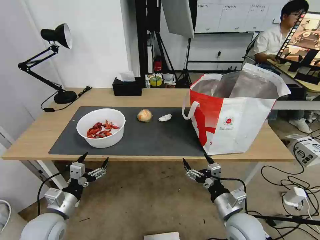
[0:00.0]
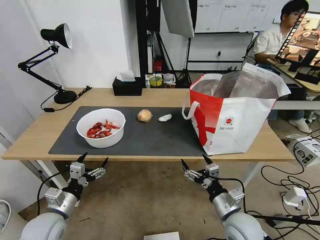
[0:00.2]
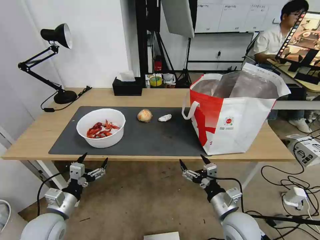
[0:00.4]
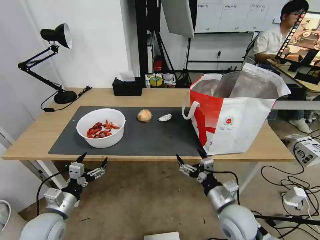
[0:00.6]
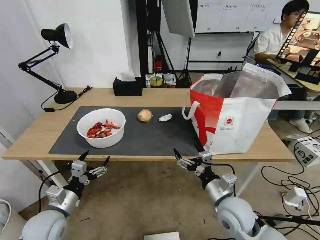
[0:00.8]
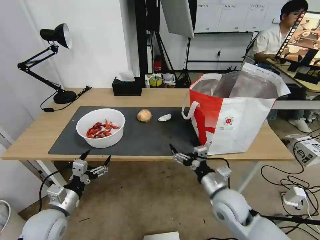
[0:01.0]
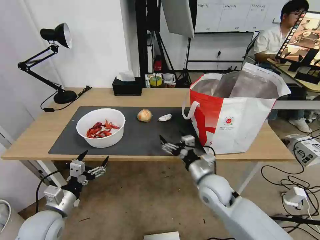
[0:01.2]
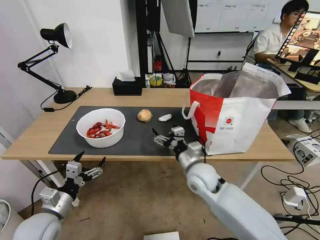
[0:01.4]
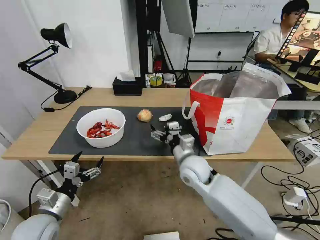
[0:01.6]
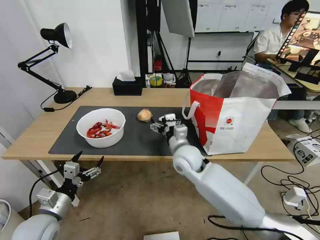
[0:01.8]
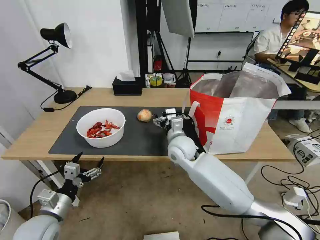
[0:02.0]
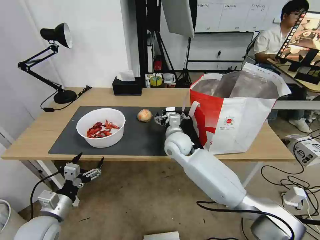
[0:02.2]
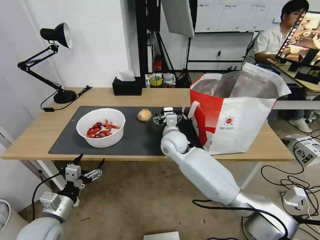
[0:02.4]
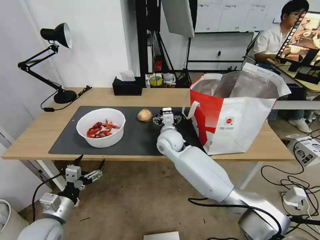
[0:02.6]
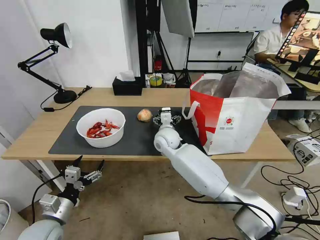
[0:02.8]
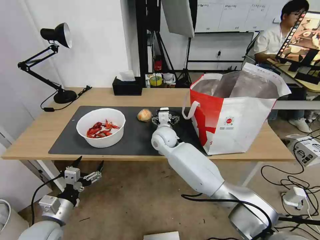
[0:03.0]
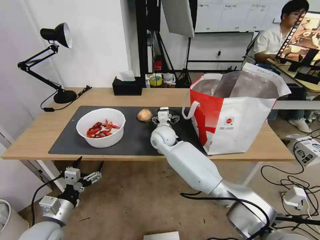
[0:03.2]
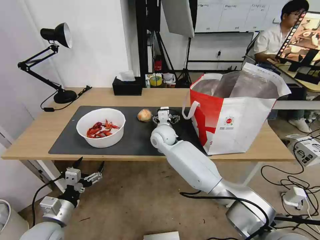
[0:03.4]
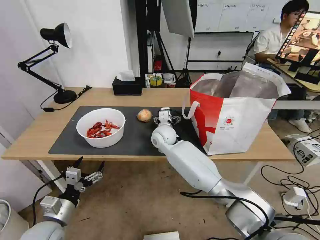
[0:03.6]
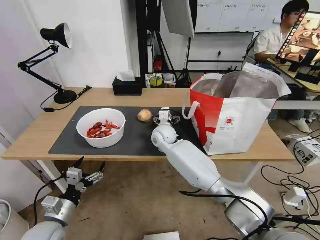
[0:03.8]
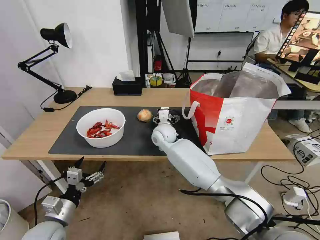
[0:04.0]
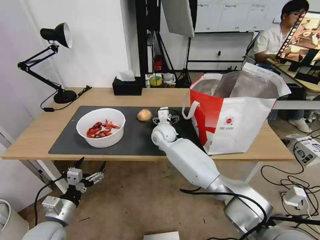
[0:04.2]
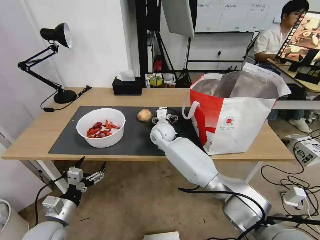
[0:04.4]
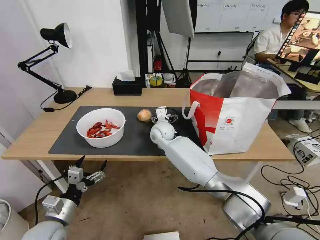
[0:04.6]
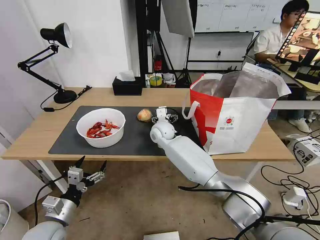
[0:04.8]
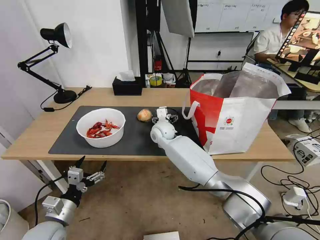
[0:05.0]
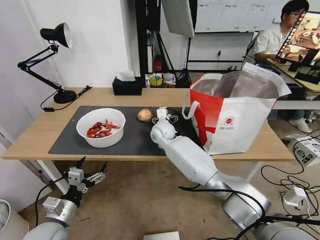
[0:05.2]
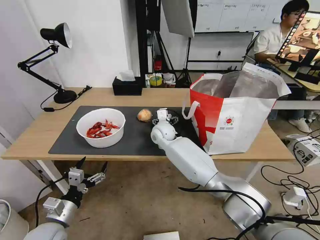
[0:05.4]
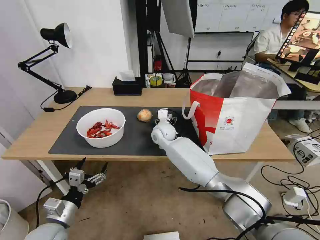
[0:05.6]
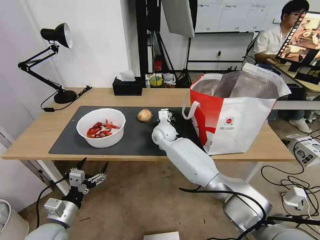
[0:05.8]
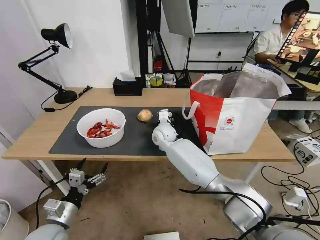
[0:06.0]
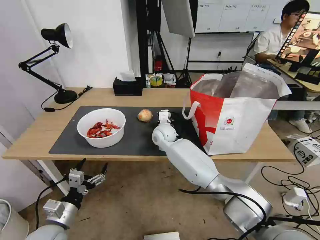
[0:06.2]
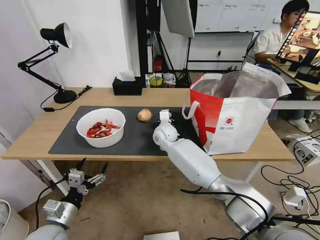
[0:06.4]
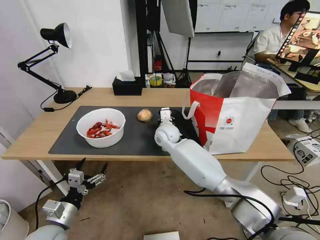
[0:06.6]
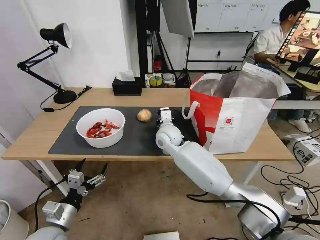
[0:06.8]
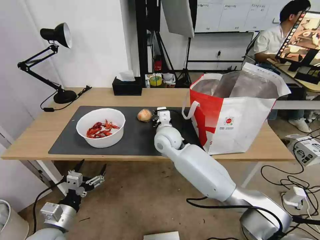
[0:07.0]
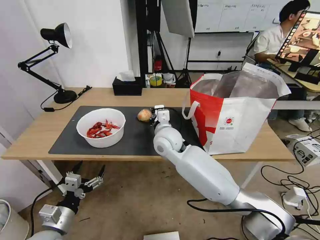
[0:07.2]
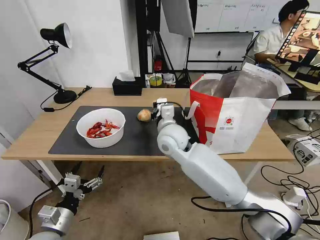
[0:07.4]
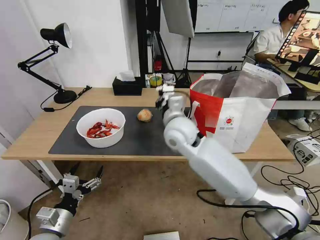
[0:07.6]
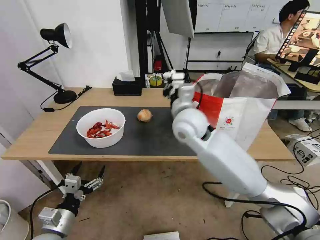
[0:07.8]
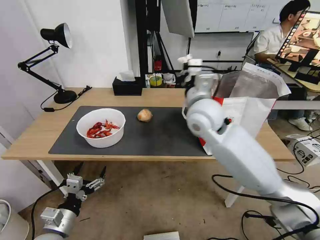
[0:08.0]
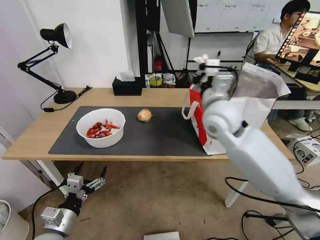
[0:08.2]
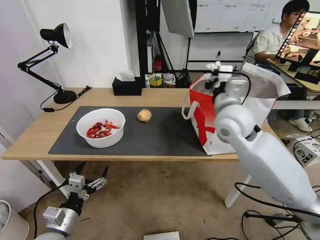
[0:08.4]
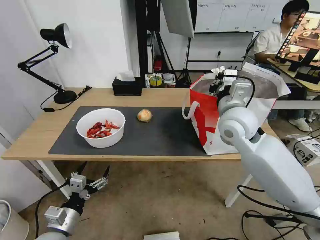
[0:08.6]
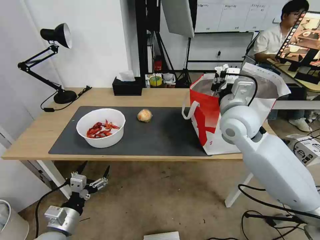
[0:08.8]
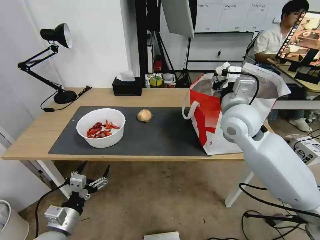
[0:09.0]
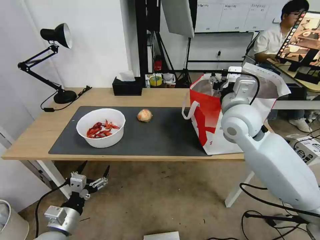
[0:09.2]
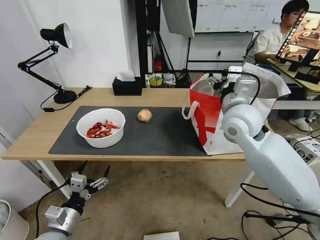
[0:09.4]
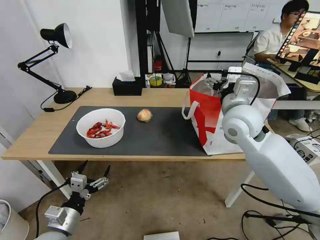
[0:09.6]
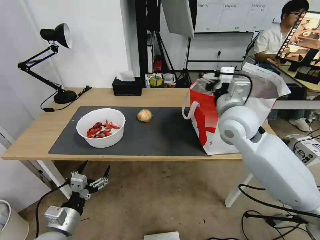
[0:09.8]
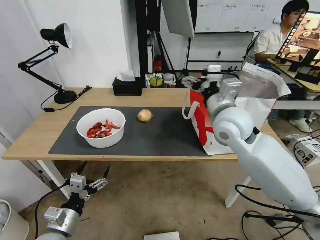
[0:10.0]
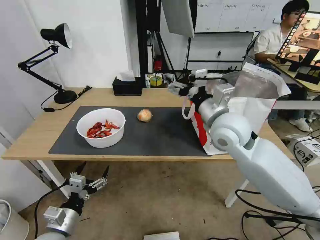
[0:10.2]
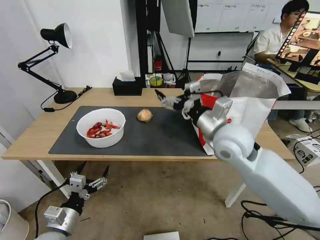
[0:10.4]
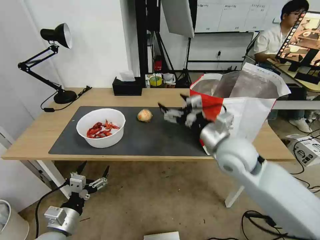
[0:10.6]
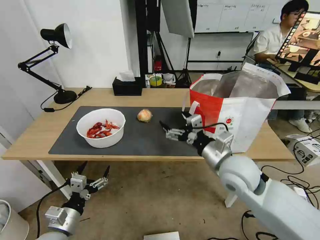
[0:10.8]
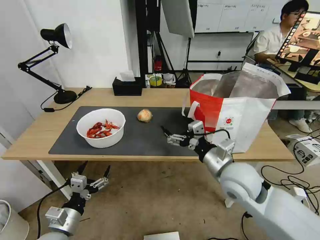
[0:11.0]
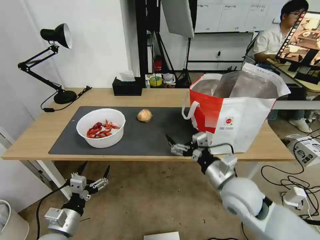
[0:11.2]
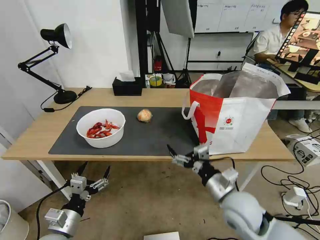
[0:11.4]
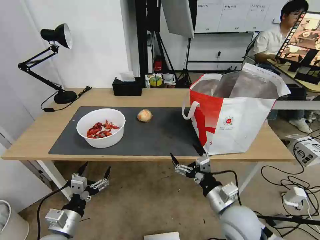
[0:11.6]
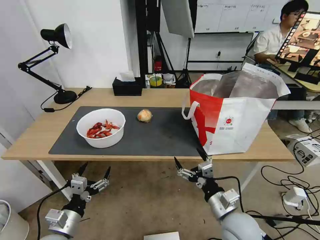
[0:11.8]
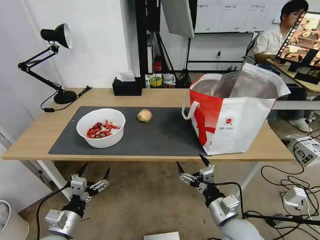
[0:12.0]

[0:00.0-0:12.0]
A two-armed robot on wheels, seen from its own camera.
Task of the whole recording: Pick up the trash from the table and place it into the takeout bag.
0:00.0 to 0:01.6: The right gripper travels forward, to the left and upward by approximately 20 cm.
0:01.6 to 0:03.0: The right gripper travels forward and to the left by some 15 cm.
0:03.0 to 0:04.4: The grippers make only small movements.
0:04.4 to 0:06.0: The right gripper closes up.
0:06.0 to 0:07.6: The right gripper goes about 15 cm upward and backward, and closes up.
0:07.6 to 0:09.0: The right gripper travels to the right by some 15 cm, and opens its fingers.
0:09.0 to 0:10.4: The right gripper shifts by approximately 5 cm, and opens up.
0:10.4 to 0:12.0: The right gripper goes approximately 25 cm downward and backward.

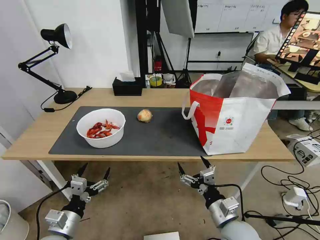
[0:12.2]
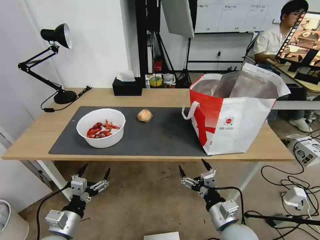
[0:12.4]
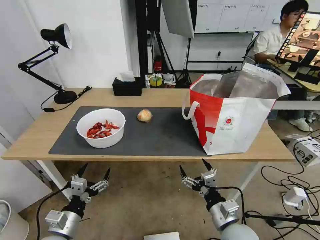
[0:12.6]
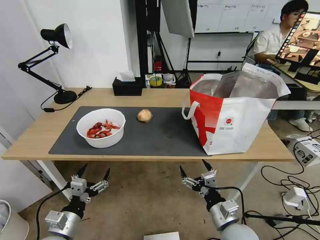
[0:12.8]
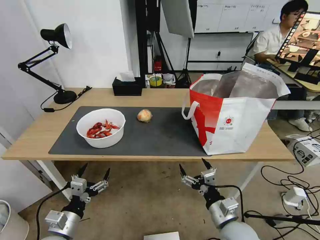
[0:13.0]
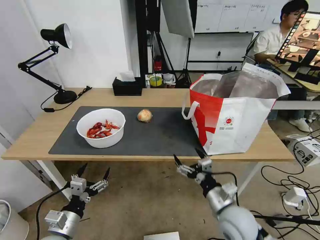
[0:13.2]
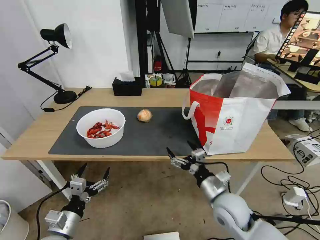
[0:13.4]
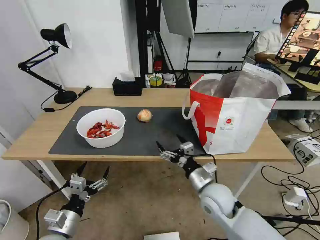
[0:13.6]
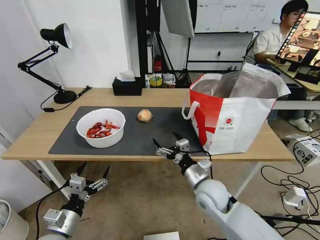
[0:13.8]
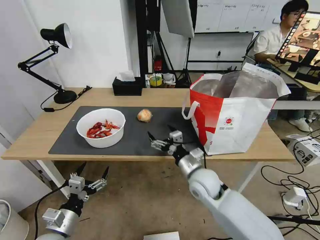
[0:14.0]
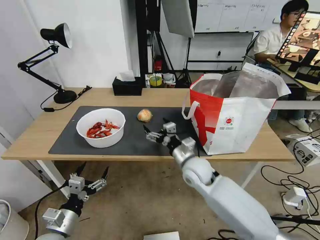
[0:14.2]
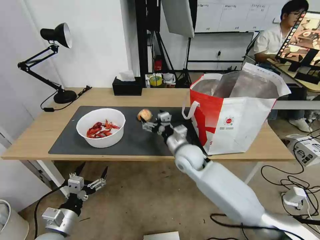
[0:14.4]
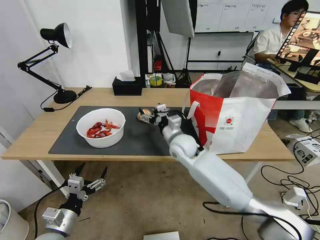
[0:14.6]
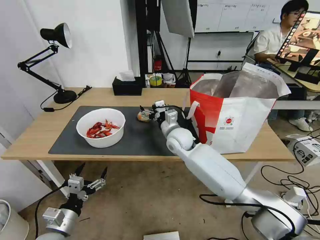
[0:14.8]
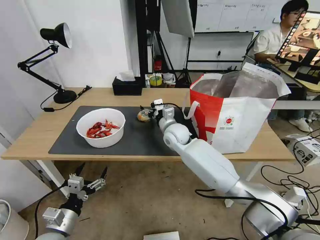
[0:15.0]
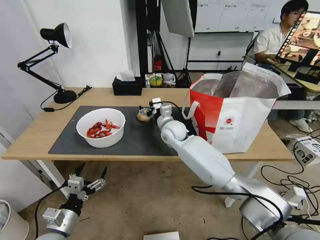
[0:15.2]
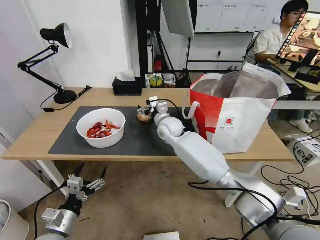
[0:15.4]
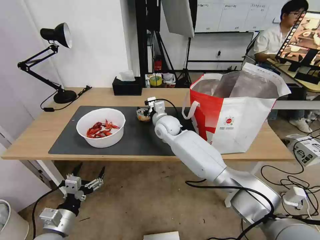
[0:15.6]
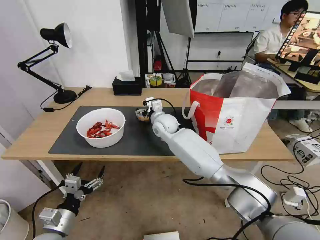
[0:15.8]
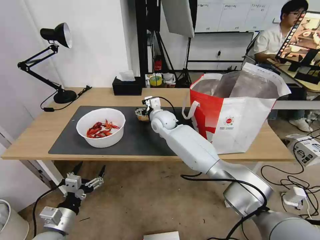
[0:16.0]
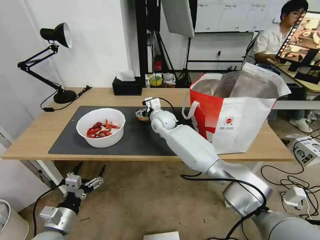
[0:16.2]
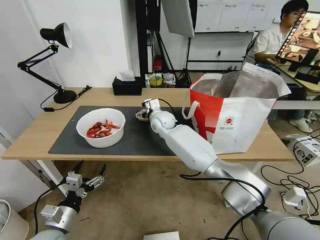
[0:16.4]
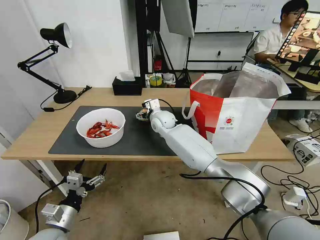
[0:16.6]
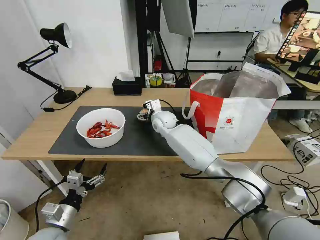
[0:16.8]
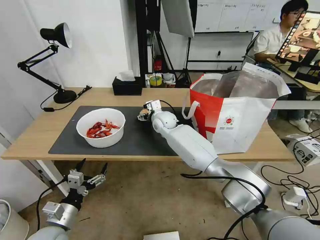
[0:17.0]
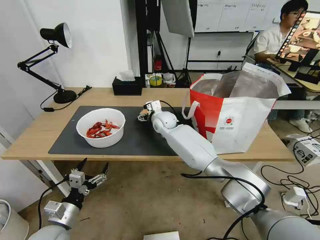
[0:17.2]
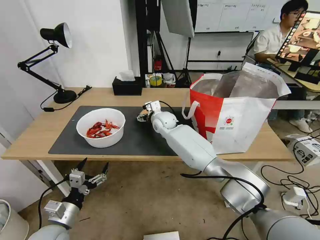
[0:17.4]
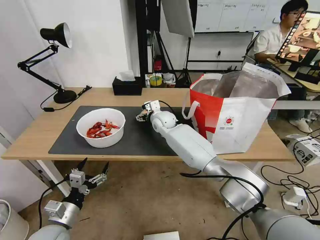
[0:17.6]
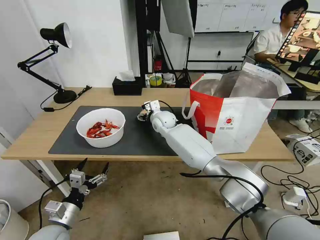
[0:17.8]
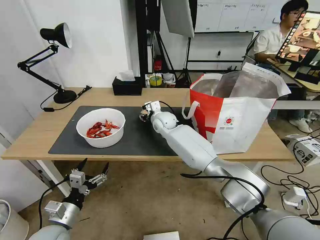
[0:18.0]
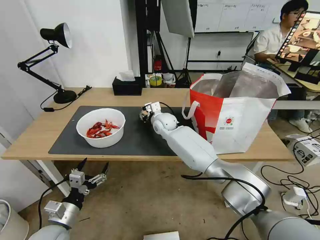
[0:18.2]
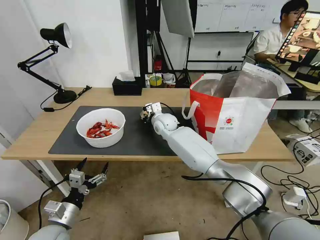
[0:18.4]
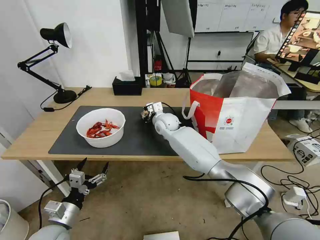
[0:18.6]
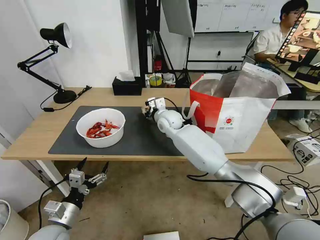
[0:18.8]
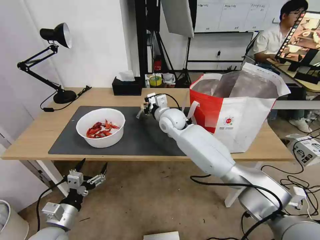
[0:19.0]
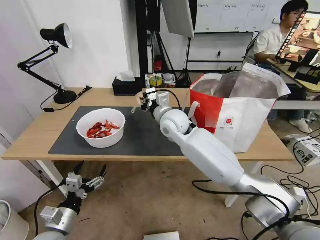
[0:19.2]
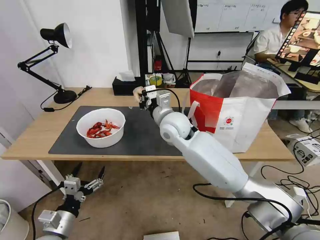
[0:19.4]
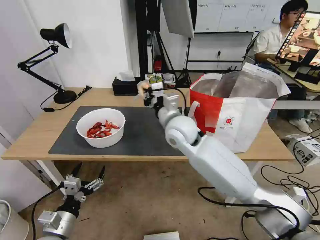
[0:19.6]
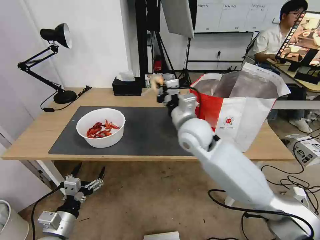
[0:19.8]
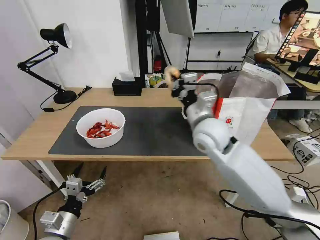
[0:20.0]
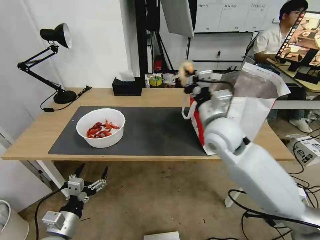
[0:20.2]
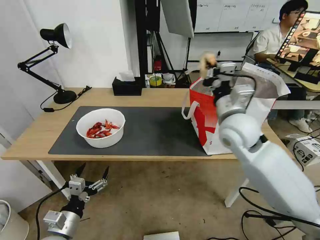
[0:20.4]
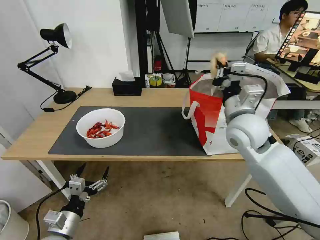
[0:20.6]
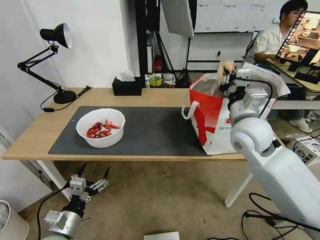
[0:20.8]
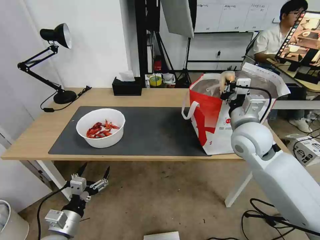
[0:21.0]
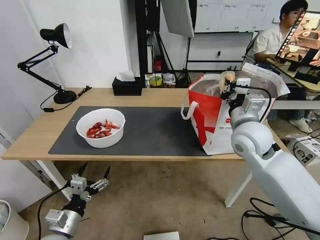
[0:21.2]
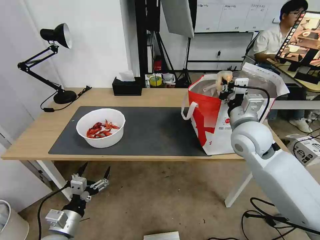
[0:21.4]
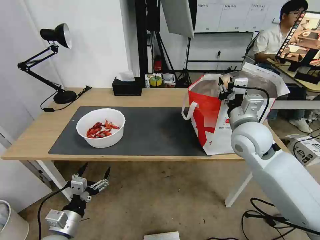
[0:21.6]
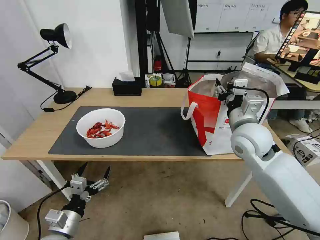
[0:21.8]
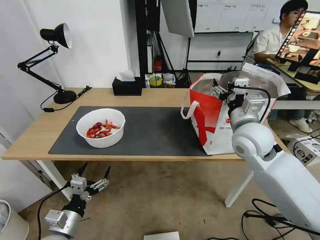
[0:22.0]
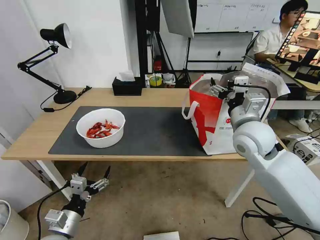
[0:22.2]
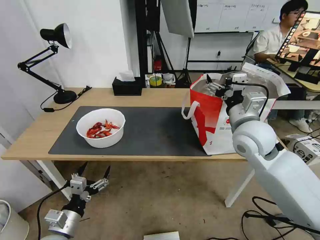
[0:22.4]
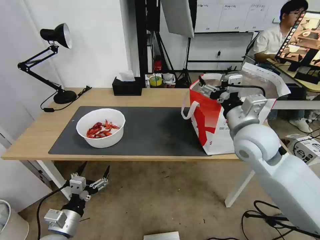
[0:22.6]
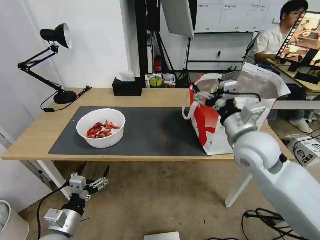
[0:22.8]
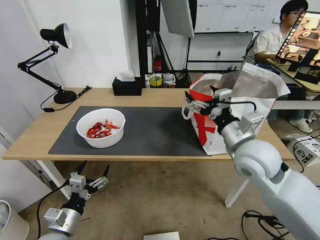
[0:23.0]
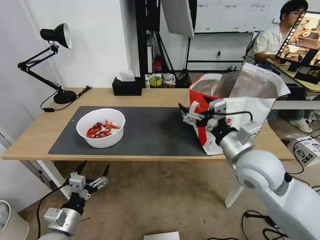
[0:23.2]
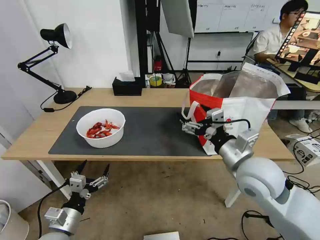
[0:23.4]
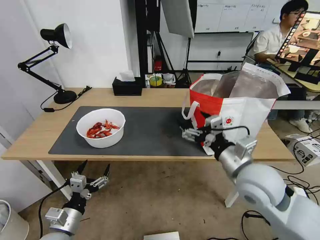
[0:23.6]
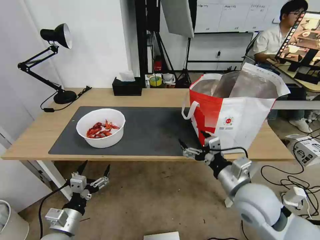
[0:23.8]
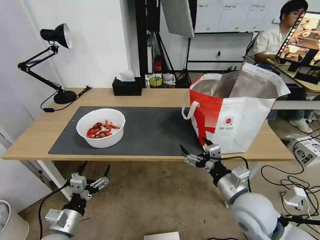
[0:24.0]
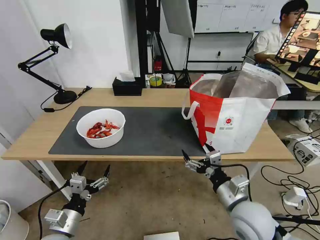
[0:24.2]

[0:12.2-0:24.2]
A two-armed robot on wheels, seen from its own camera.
Task of the whole recording: Pick up the trash from the table and place it into the takeout bag.
0:12.2 to 0:13.8: The right gripper travels forward and to the left by approximately 15 cm.
0:13.8 to 0:15.2: The right gripper heads forward and to the left, covering roughly 25 cm.
0:15.2 to 0:16.6: The right gripper moves forward, some 5 cm.
0:16.6 to 0:18.2: The right gripper closes.
0:18.2 to 0:19.8: The right gripper moves backward, upward and to the right, about 20 cm.
0:19.8 to 0:21.2: The right gripper shifts approximately 15 cm to the right.
0:21.2 to 0:22.6: The right gripper opens up.
0:22.6 to 0:24.2: The right gripper heads downward and backward, covering roughly 20 cm.
